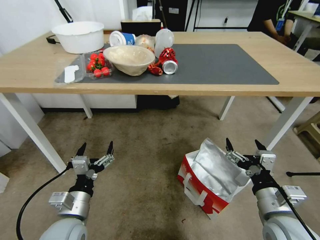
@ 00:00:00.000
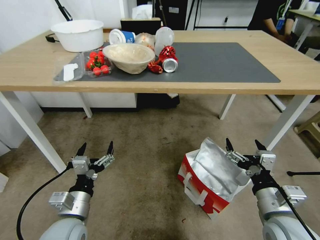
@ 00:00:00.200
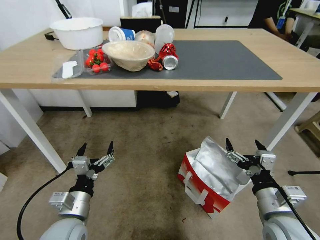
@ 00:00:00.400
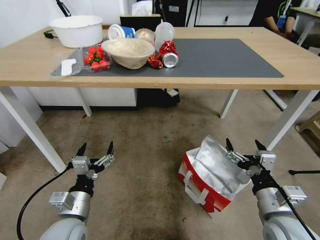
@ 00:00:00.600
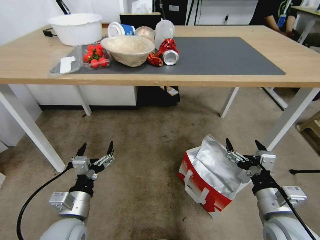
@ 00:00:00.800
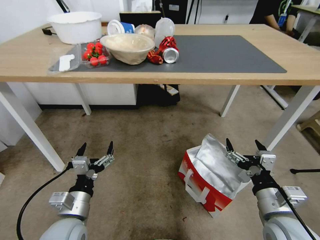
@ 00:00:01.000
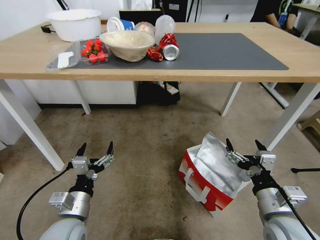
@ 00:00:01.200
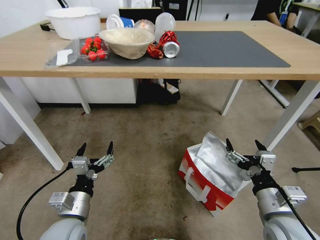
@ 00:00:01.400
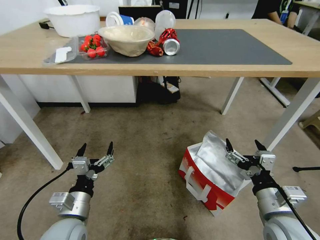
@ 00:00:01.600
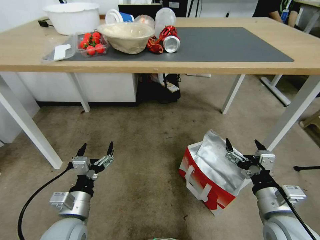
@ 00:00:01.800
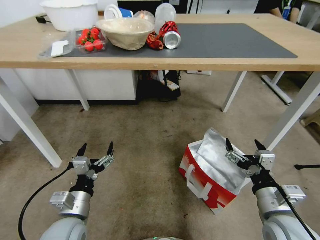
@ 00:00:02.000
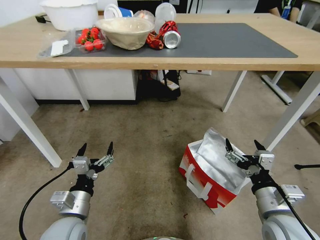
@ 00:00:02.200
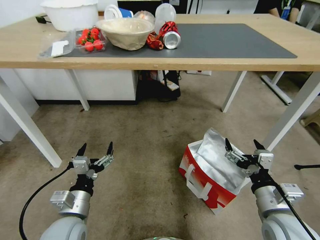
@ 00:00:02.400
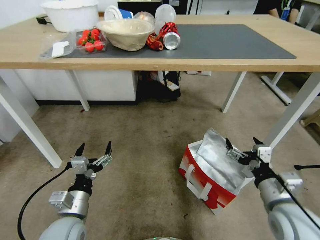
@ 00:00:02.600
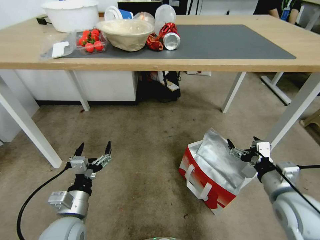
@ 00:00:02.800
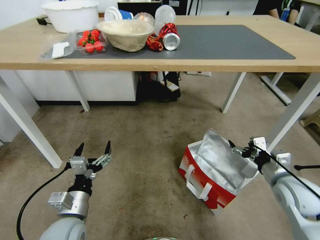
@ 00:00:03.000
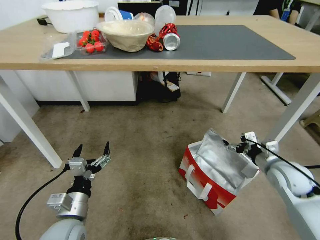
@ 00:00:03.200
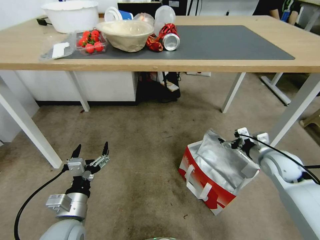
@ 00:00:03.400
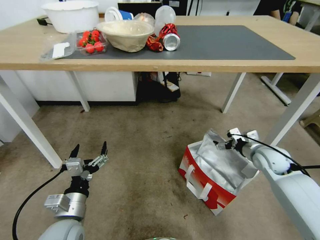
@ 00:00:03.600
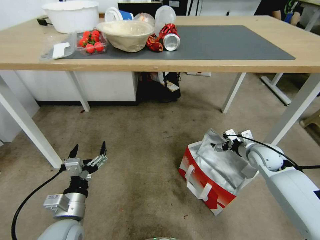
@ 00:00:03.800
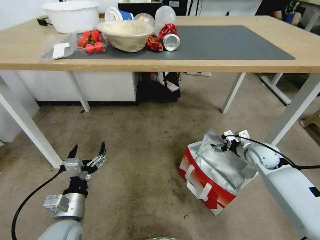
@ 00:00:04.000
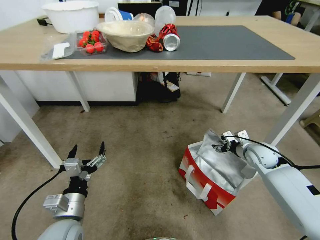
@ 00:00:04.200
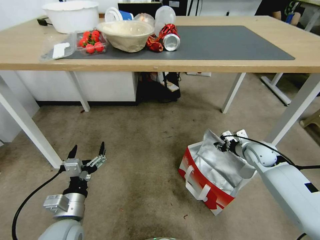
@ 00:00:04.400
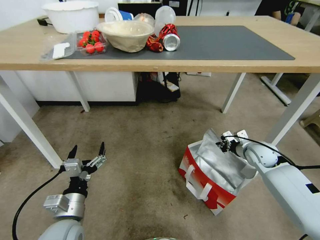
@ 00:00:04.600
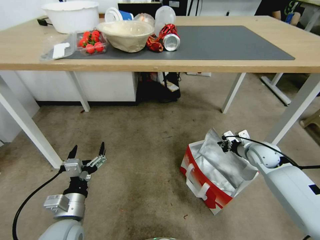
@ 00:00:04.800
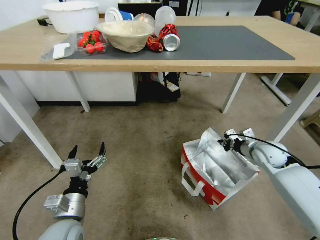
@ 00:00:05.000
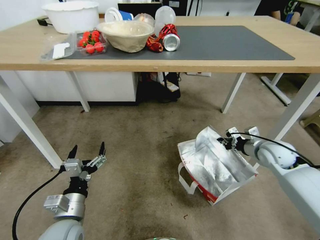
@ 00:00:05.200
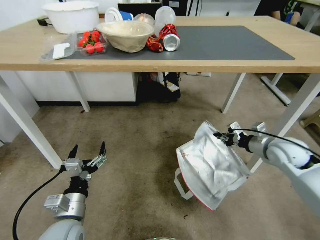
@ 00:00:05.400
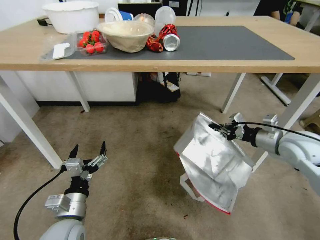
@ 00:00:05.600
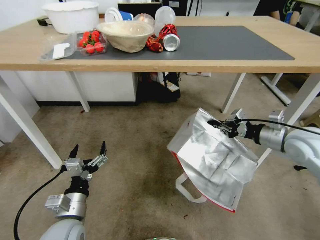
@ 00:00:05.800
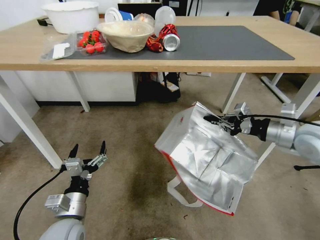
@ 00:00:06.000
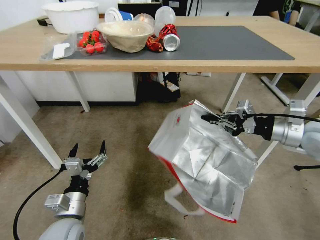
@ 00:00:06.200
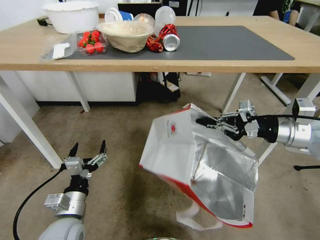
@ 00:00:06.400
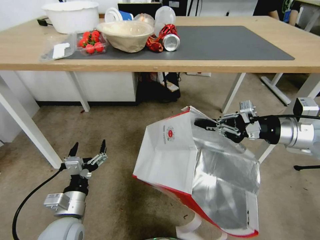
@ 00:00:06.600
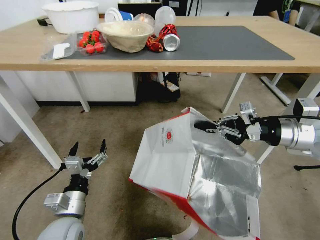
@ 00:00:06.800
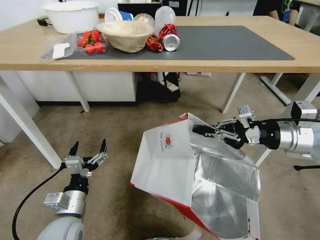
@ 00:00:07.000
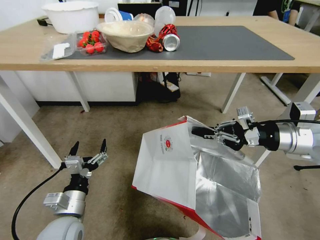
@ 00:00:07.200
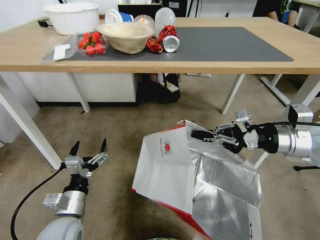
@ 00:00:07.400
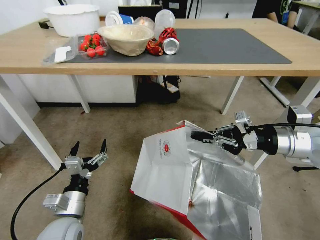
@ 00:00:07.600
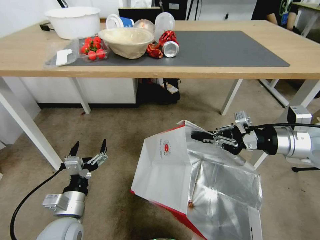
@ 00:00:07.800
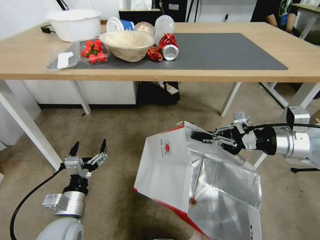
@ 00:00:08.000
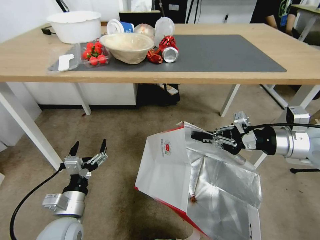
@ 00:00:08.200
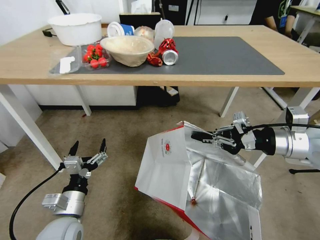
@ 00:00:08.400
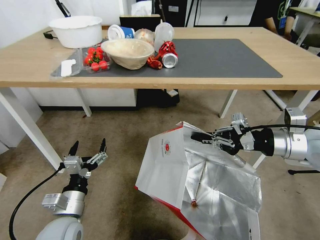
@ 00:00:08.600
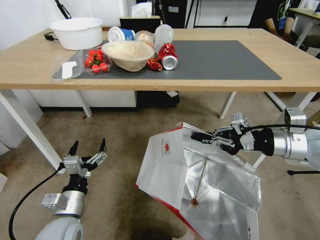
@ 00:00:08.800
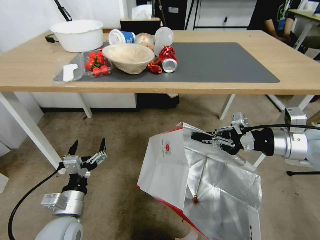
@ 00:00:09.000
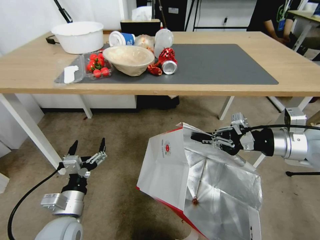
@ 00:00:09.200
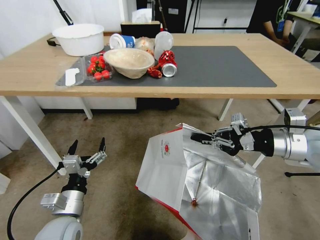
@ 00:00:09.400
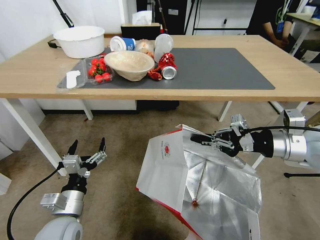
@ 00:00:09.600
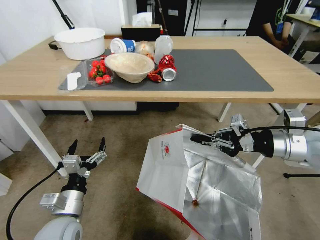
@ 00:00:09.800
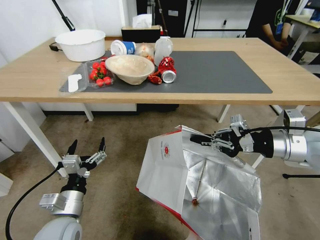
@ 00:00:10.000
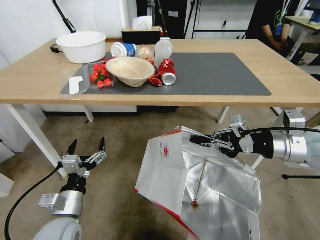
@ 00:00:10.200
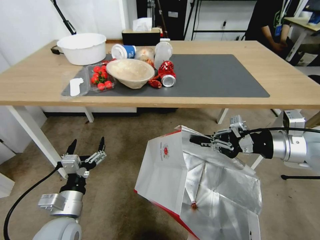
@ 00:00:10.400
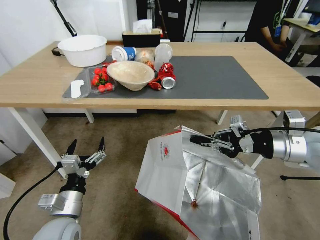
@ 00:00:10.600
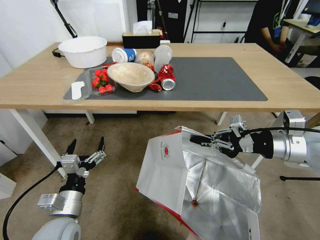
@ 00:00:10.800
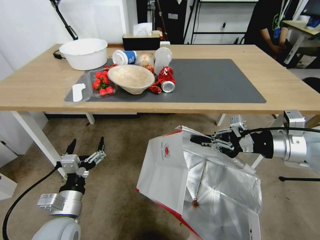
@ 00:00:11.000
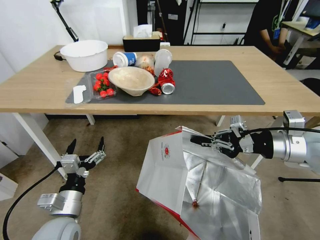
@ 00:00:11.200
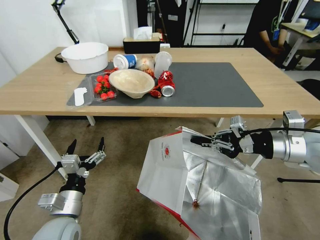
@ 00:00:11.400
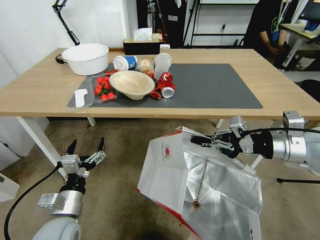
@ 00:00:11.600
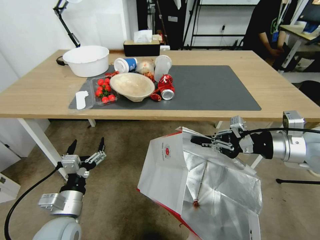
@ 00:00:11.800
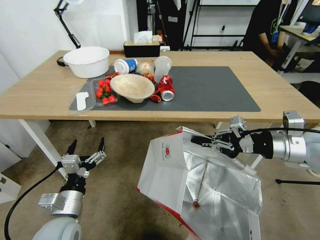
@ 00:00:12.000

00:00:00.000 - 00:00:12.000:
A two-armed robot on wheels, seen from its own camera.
Task of the whole recording: Pick up the food delivery bag from the floor and place it on the table.
00:00:01.600 - 00:00:03.000: The right gripper shifts about 10 cm forward and to the right.
00:00:03.000 - 00:00:04.400: The right gripper moves forward, approximately 20 cm, and closes its fingers.
00:00:04.400 - 00:00:06.000: The right gripper travels upward by roughly 20 cm, and closes up.
00:00:06.000 - 00:00:07.600: The right gripper shifts by roughly 5 cm.

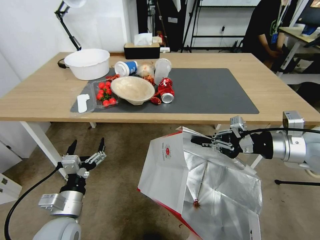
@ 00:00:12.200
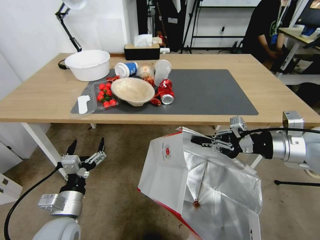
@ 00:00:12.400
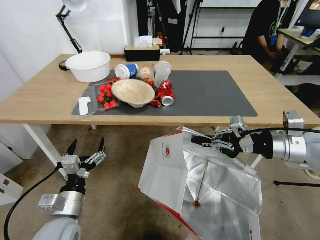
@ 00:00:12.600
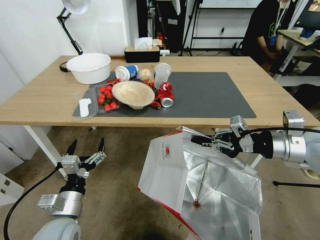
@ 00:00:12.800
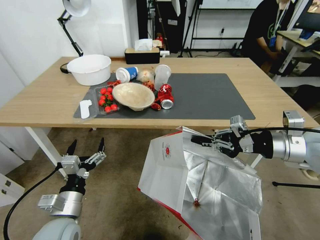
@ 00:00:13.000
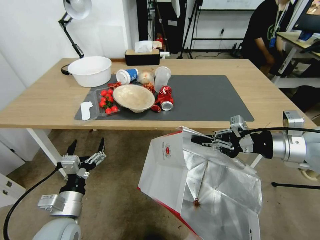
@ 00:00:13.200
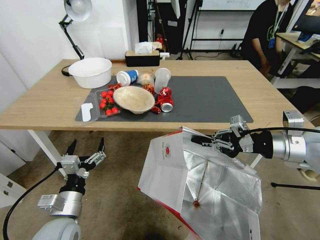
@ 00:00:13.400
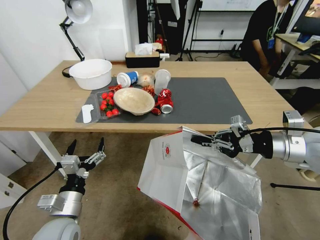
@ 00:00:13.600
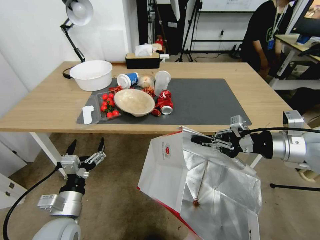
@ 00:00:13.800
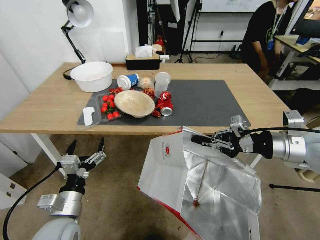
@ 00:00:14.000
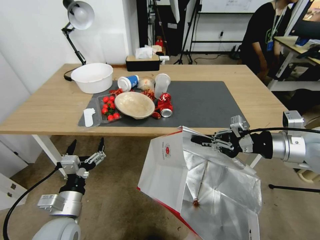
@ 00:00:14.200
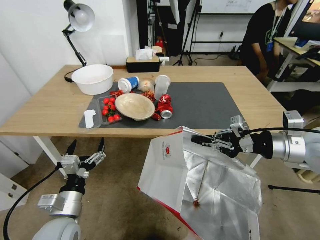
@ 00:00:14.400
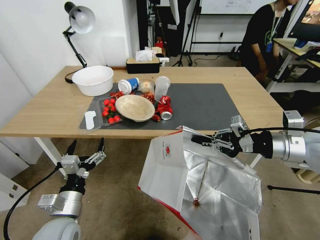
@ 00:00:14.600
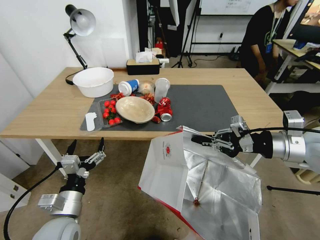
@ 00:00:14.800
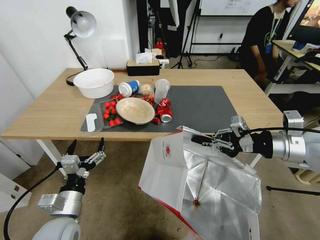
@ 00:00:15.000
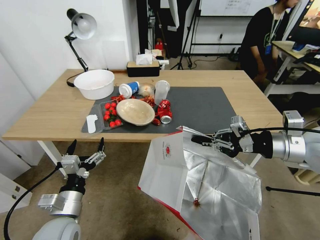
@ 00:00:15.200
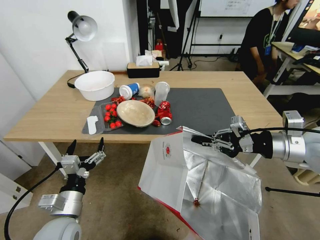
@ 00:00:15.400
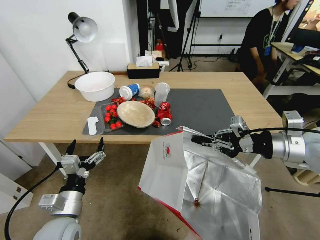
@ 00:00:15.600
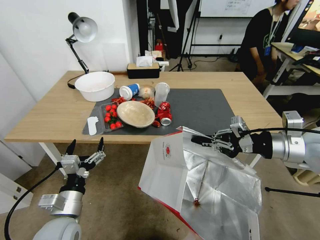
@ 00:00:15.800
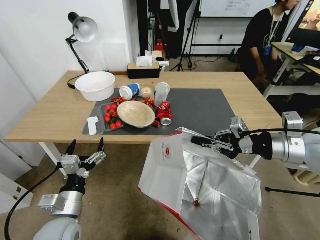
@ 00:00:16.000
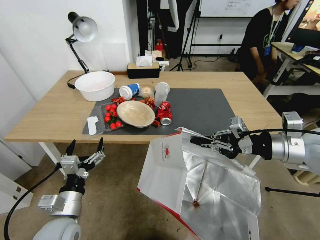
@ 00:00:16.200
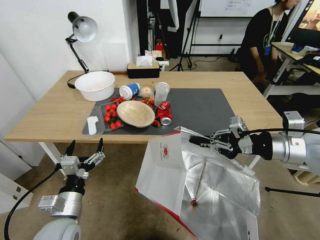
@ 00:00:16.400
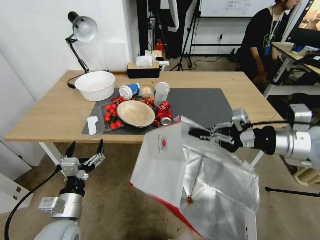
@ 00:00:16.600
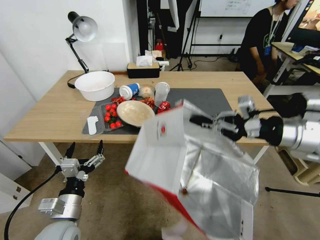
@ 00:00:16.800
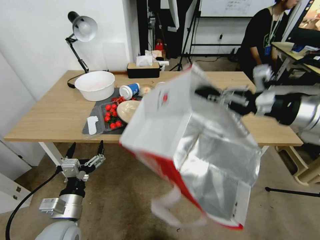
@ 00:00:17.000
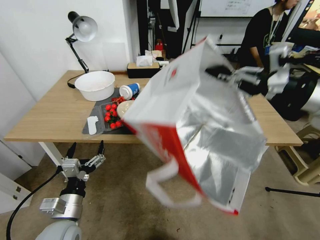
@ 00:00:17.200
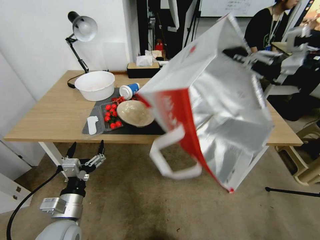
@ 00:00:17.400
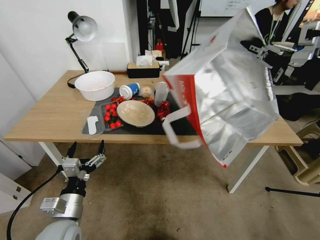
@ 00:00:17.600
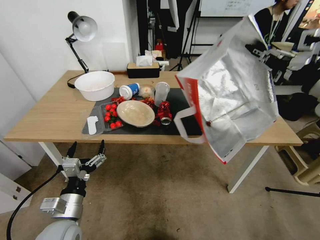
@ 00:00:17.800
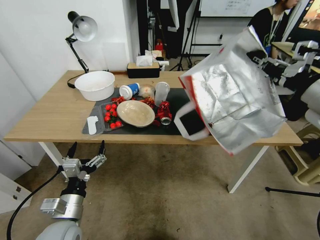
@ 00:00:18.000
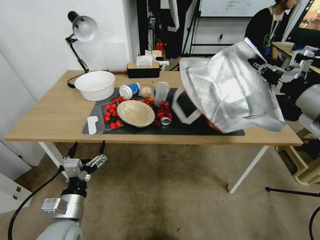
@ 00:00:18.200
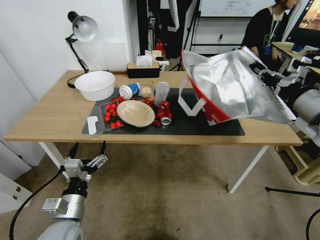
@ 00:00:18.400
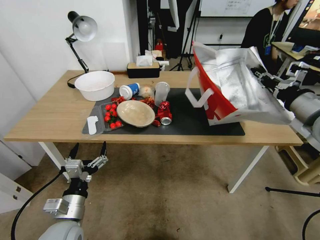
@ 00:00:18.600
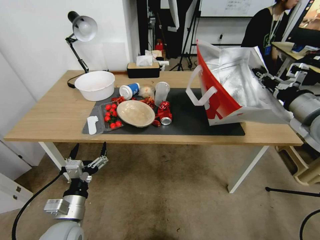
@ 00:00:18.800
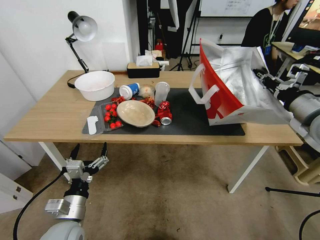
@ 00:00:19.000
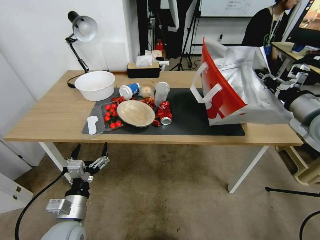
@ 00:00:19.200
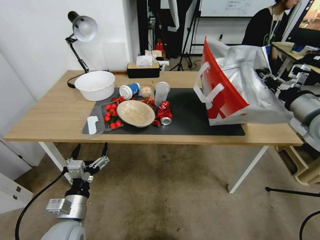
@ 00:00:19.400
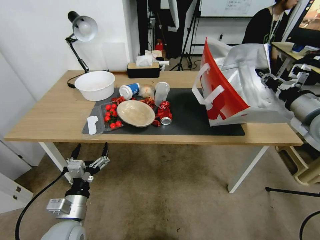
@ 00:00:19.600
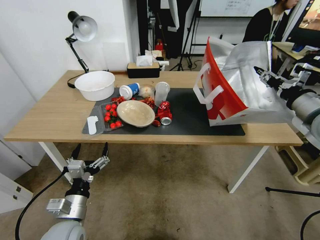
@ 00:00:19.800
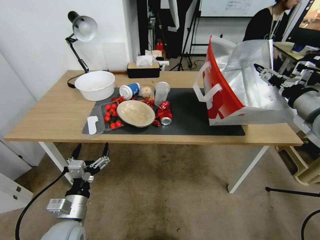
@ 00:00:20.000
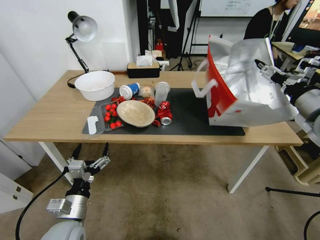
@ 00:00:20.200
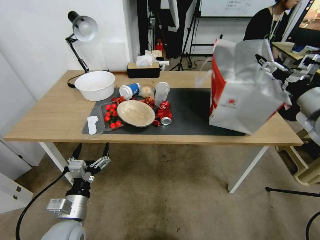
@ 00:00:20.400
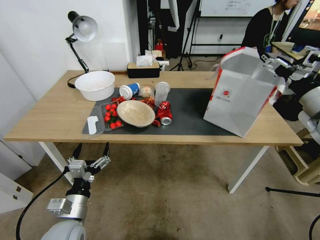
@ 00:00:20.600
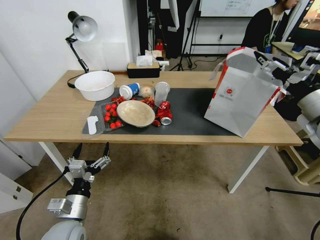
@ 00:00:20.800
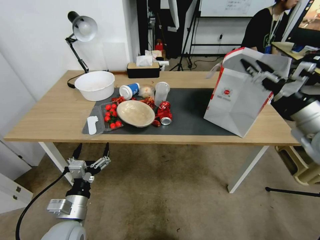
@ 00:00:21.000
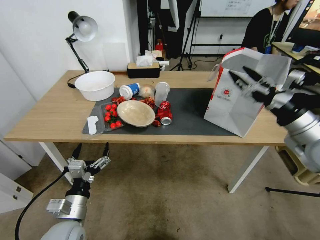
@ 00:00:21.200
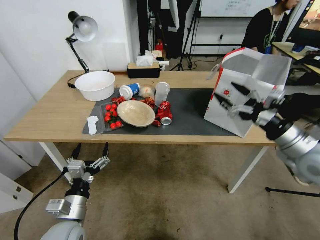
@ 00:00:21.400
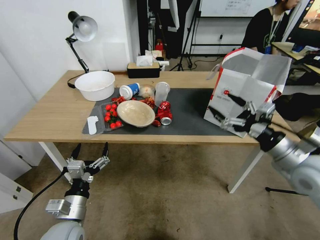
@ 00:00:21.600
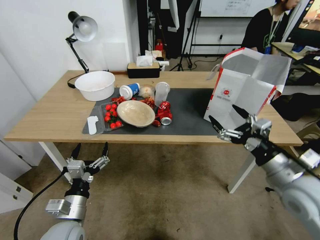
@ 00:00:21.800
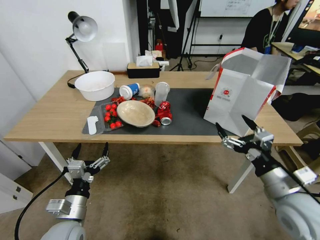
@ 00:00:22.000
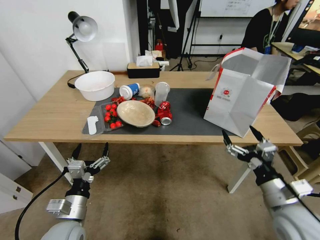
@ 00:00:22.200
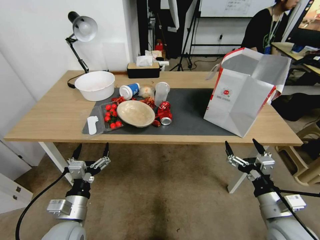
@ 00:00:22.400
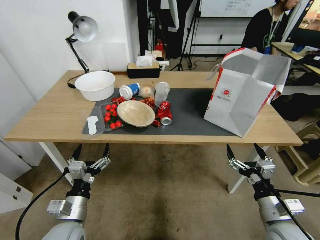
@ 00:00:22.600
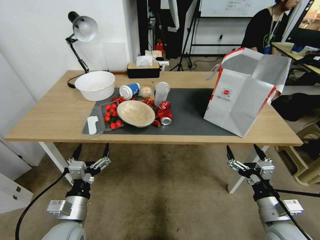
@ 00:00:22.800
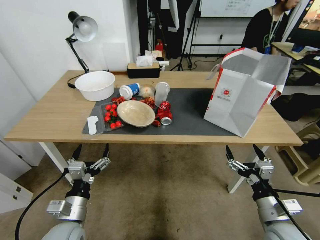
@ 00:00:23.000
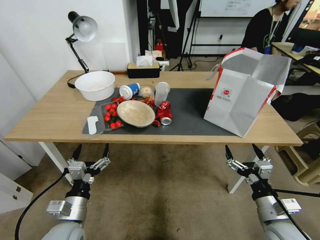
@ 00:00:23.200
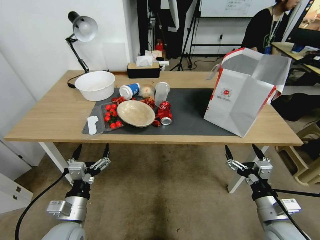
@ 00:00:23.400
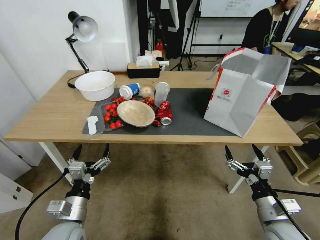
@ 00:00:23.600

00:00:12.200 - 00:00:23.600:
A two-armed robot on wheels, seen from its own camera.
Task of the whole recording: Pick up the food delivery bag from the floor and place it on the table.
00:00:15.000 - 00:00:16.400: Neither gripper changes place.
00:00:16.400 - 00:00:17.800: The right gripper shifts roughly 10 cm upward.
00:00:17.800 - 00:00:19.400: The right gripper is displaced downward by about 10 cm.
00:00:19.400 - 00:00:20.800: The right gripper opens up.
00:00:20.800 - 00:00:22.200: The right gripper goes approximately 25 cm downward, backward and to the left.
00:00:22.200 - 00:00:23.600: The right gripper is displaced downward by approximately 5 cm.
